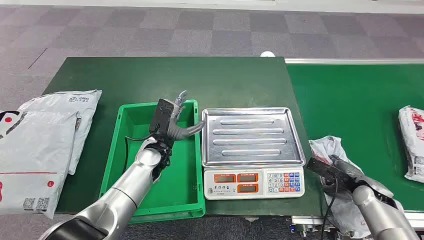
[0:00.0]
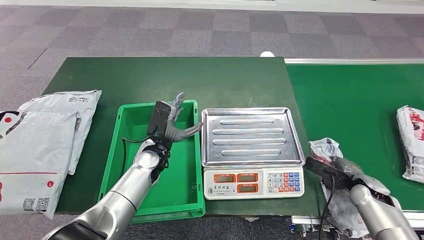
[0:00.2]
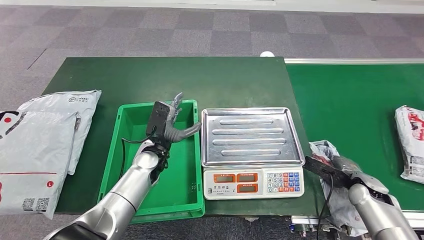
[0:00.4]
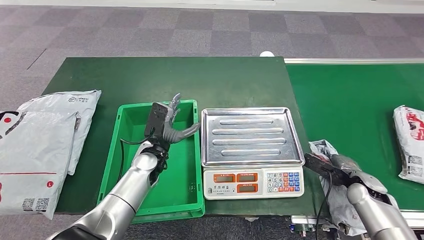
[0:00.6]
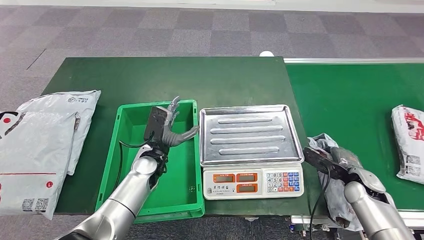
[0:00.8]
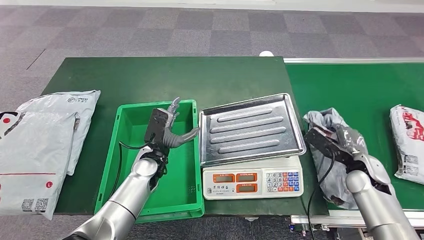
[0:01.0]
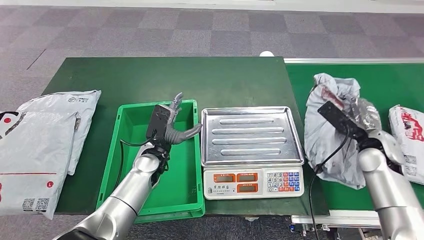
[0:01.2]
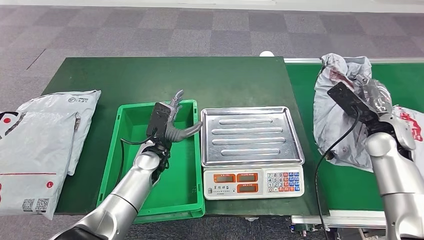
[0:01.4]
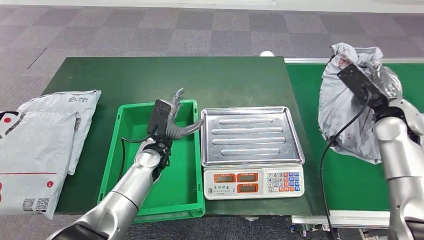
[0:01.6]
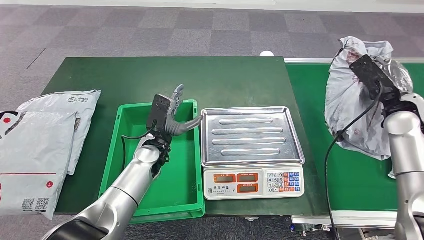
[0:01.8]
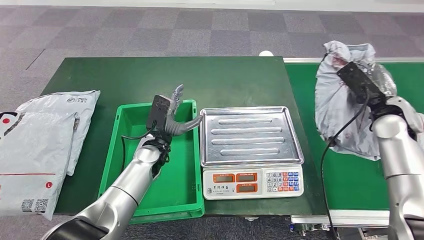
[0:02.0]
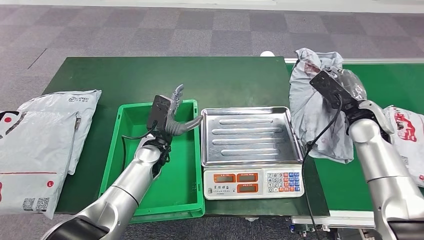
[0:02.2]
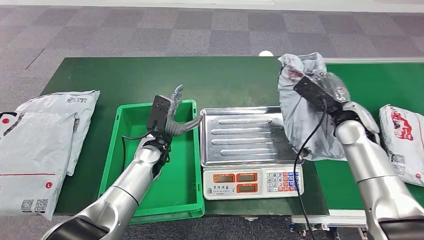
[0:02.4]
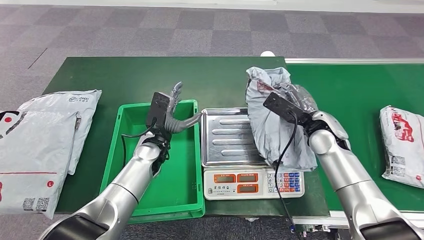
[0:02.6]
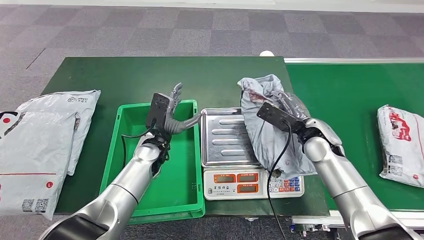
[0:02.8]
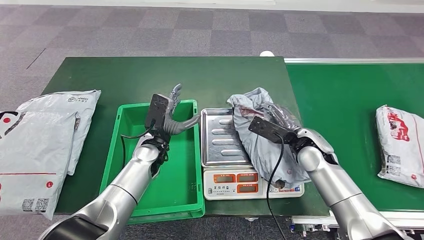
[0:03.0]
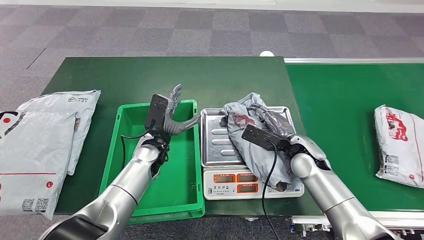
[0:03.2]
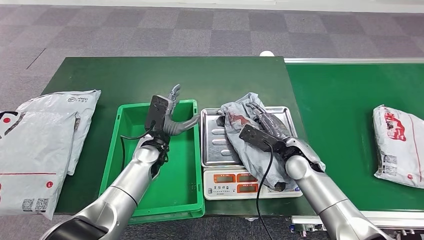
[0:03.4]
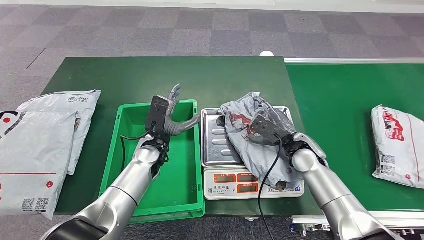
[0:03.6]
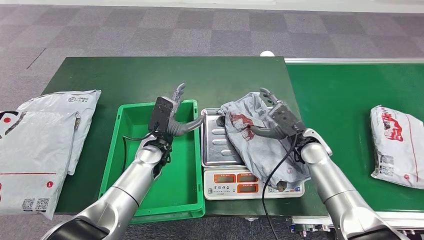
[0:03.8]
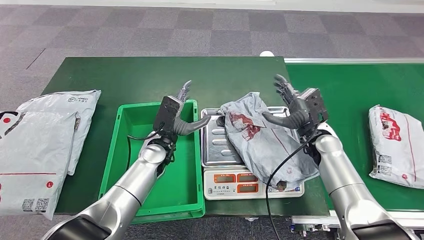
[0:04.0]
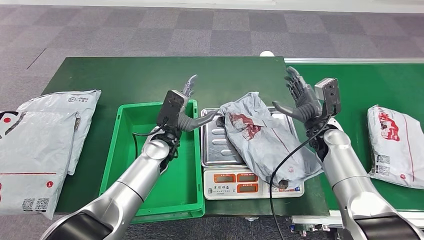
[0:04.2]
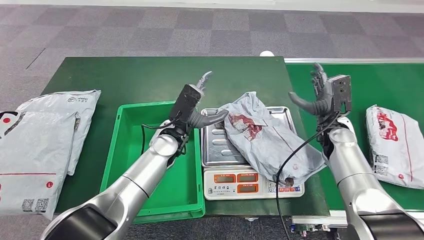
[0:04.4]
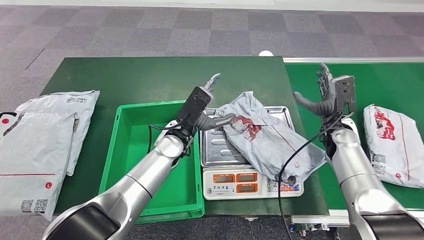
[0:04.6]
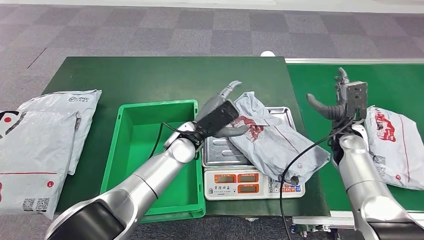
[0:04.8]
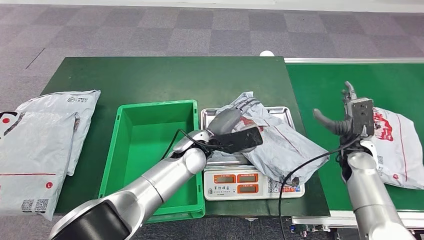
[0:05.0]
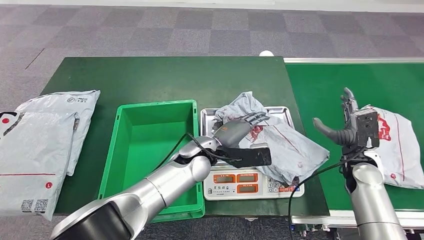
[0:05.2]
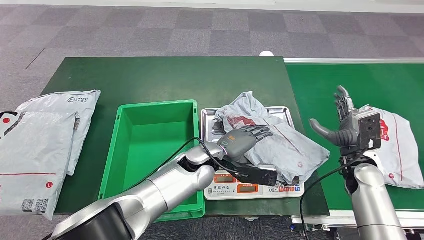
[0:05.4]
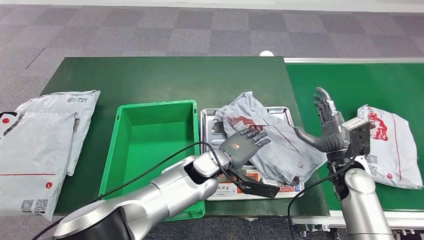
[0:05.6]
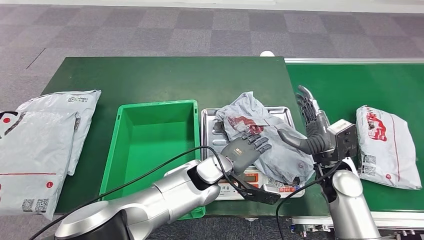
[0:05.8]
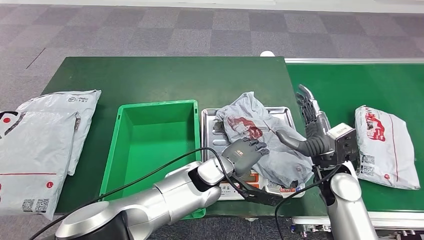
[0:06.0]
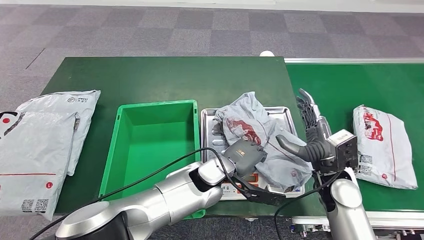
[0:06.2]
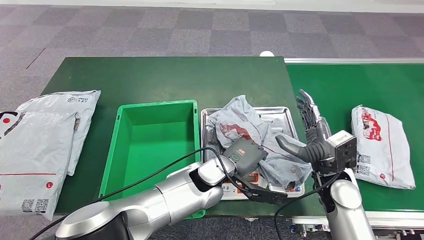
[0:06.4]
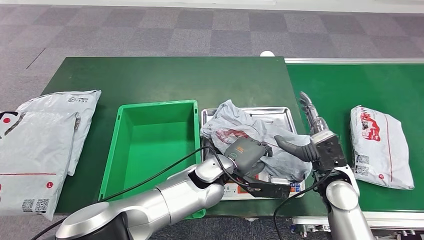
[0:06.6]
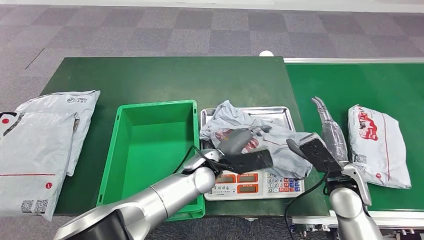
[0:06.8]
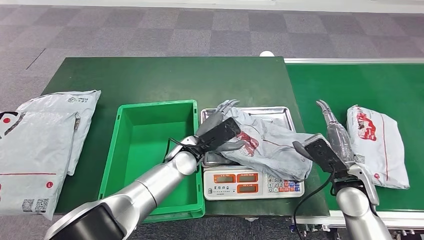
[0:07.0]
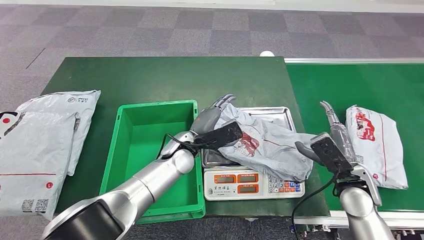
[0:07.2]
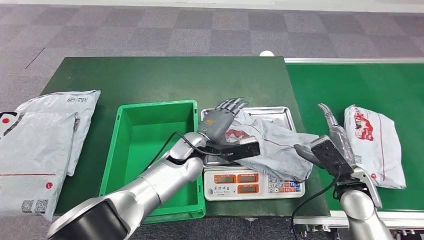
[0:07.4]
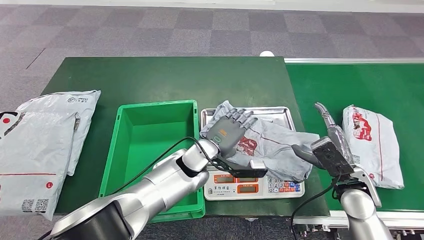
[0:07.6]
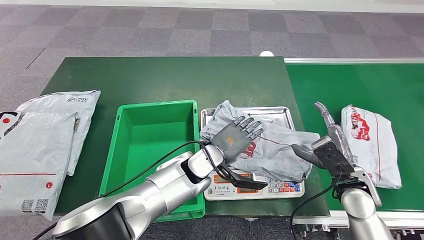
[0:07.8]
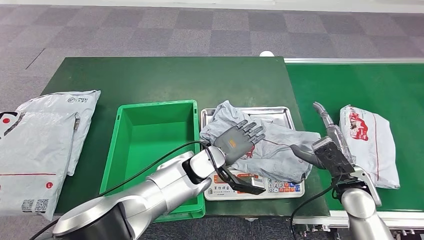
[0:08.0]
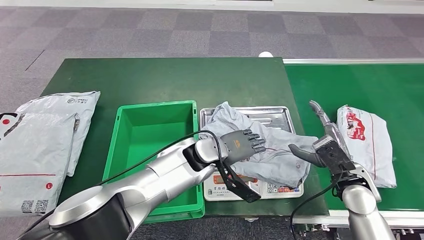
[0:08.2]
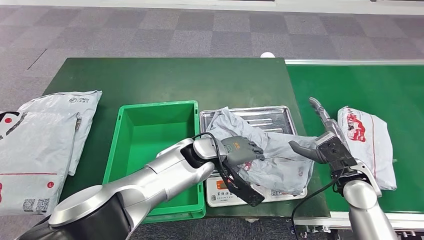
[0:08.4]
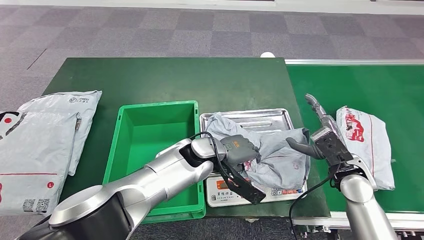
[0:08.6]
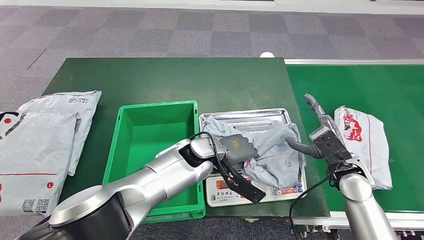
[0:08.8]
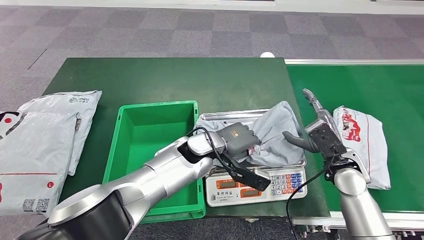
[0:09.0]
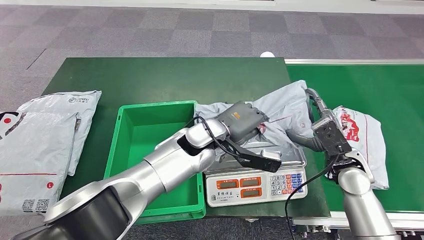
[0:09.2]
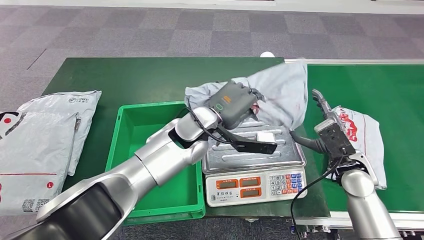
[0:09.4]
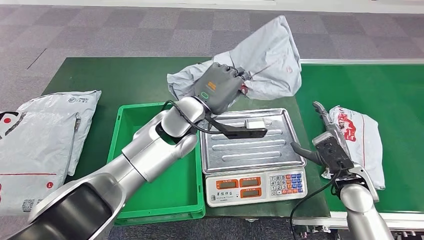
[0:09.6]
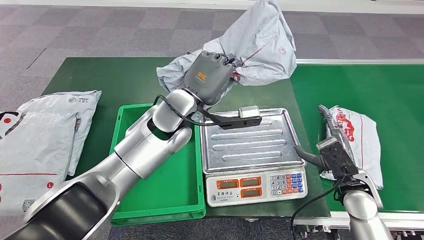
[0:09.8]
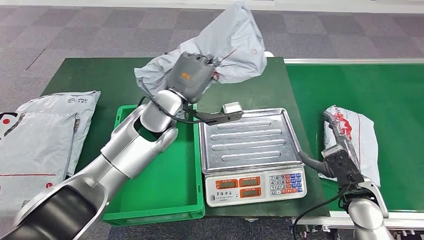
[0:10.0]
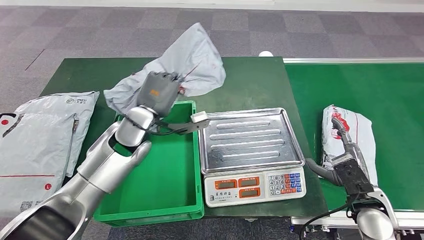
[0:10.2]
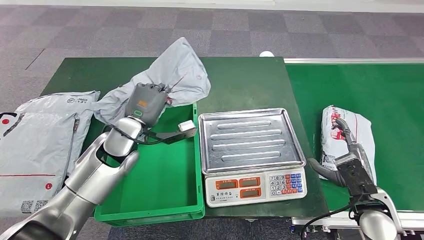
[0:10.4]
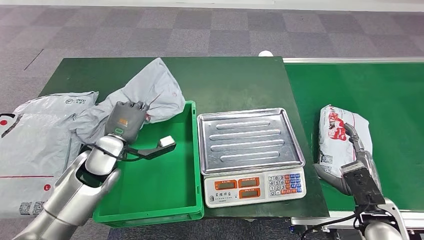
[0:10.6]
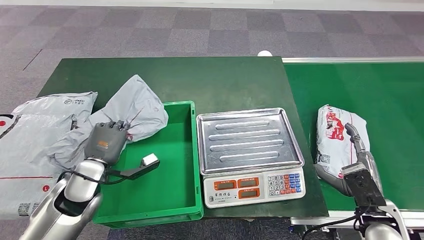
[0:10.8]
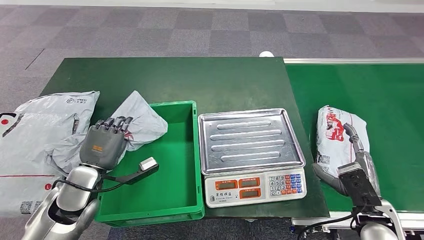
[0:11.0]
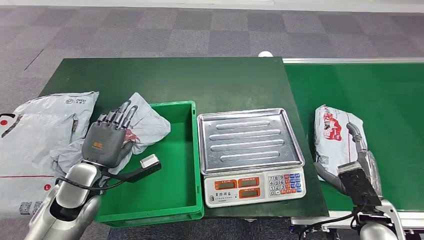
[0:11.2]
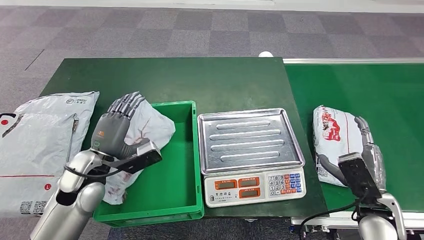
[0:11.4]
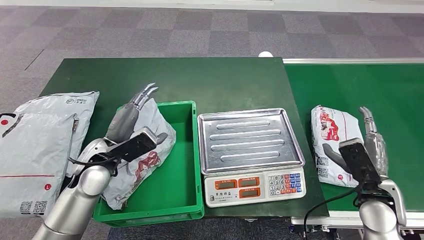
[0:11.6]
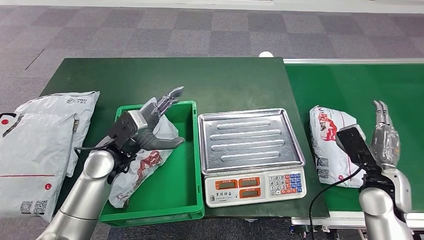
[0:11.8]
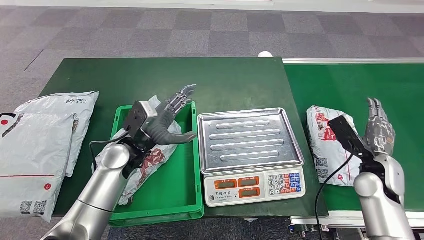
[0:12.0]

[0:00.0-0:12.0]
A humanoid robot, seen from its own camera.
Step, 0:00.0 to 0:01.6: Take the parcel off the conveyor belt.
Step, 0:01.8 to 0:04.4: Place the parcel onto the inbound machine.
Step, 0:06.0 to 0:09.6: Pick up the parcel from the inbound machine.

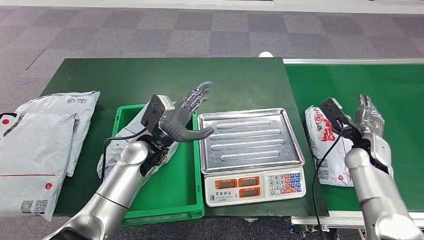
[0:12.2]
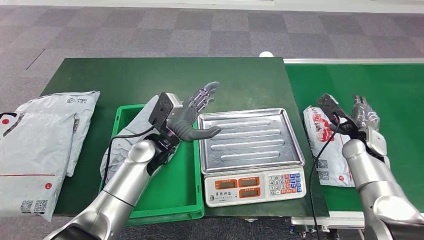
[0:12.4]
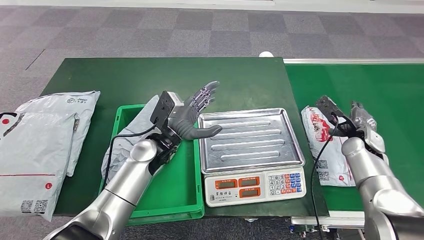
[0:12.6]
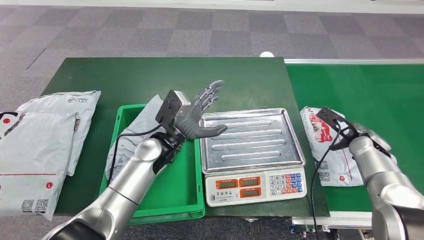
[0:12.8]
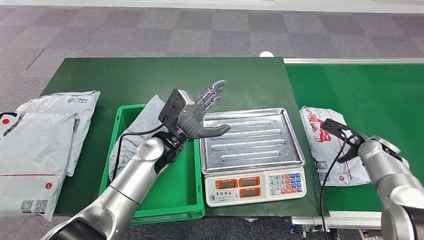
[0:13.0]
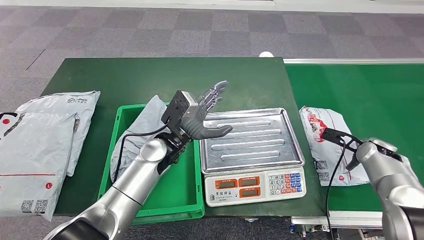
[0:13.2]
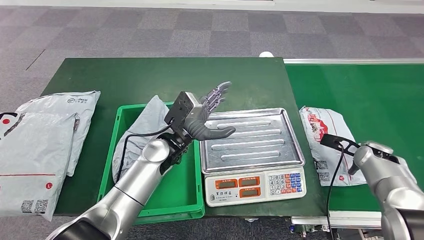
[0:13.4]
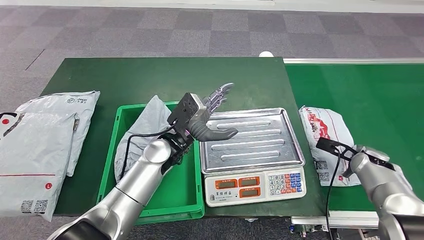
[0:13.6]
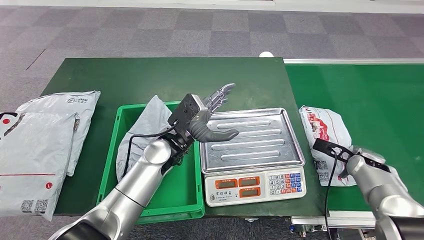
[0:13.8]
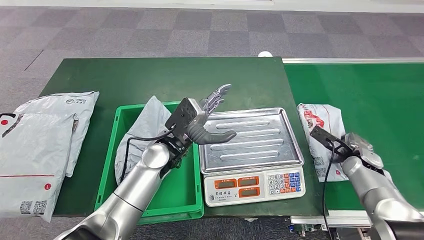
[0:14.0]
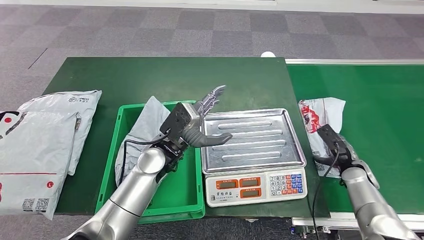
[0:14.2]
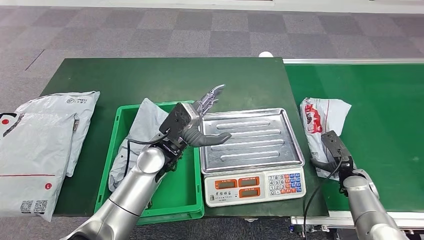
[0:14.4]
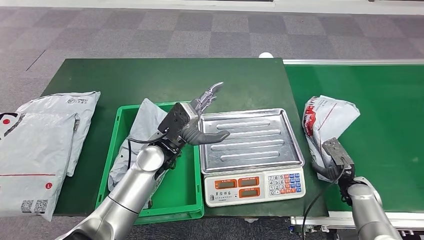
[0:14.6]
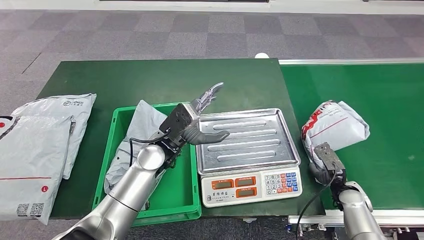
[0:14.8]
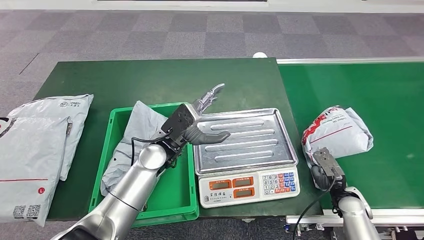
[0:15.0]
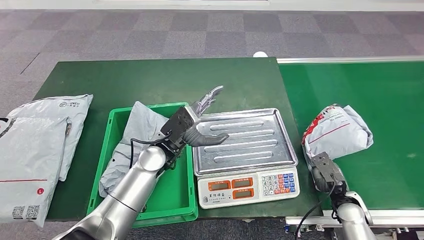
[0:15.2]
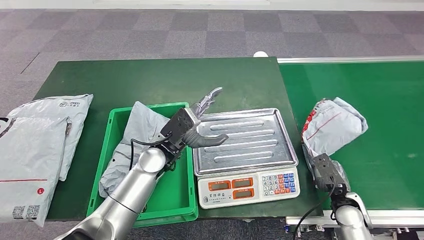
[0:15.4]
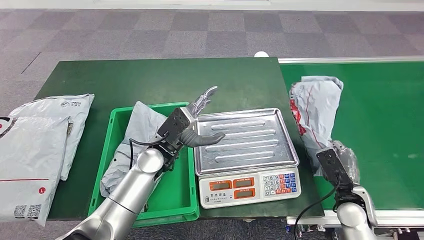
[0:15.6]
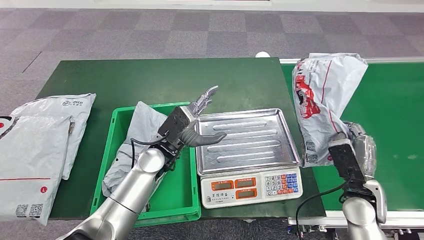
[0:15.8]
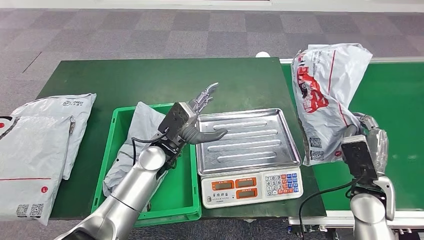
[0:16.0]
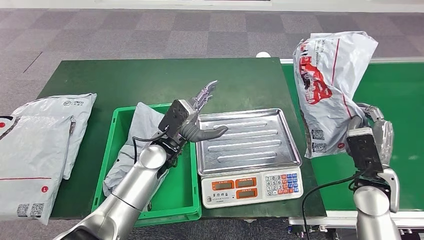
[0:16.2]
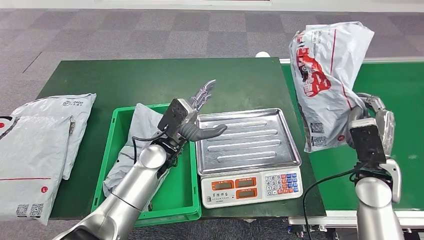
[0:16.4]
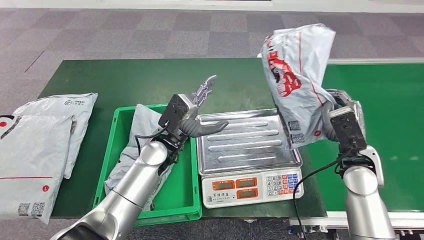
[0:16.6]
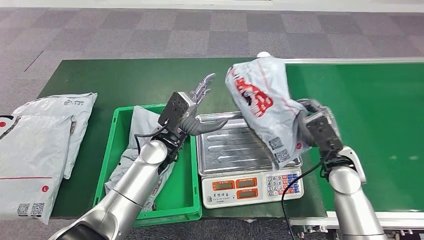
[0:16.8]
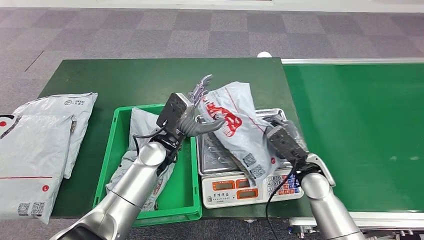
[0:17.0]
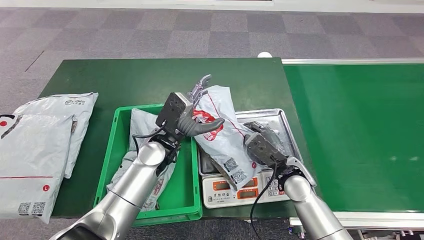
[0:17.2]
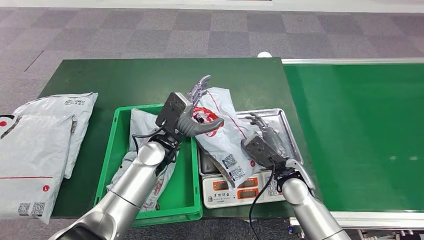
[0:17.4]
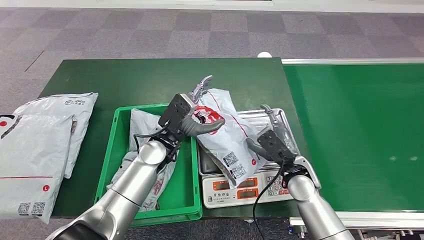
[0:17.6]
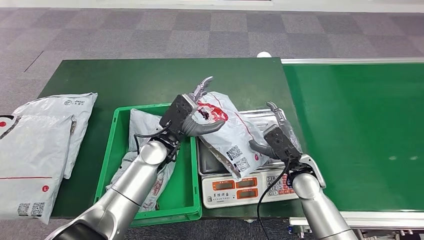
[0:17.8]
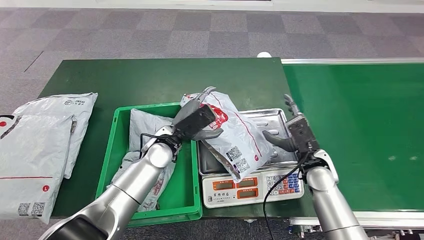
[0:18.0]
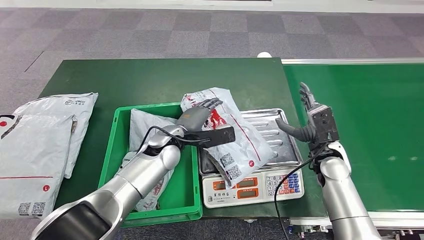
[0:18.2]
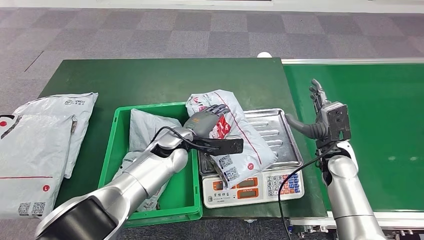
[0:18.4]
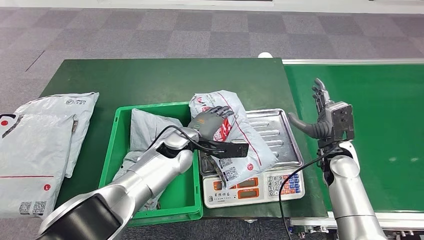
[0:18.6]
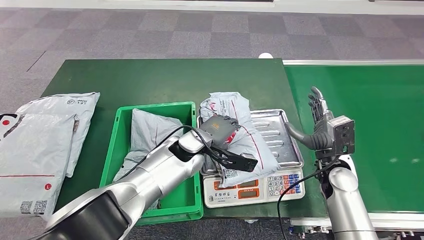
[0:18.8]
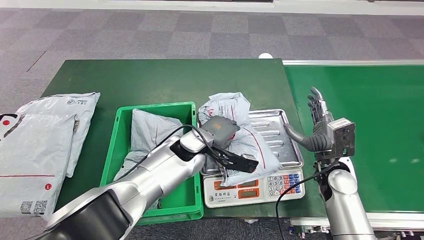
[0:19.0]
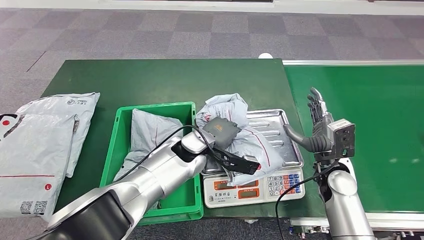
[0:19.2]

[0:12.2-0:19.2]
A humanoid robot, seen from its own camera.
Step, 0:14.0 to 0:16.2: Pick up the parcel from the conveyor belt.
Step, 0:16.4 to 0:18.2: Place the parcel onto the inbound machine.
0:12.2 to 0:13.6: The right hand shifts about 5 cm downward. Meanwhile the left hand is displaced to the right by about 5 cm.
